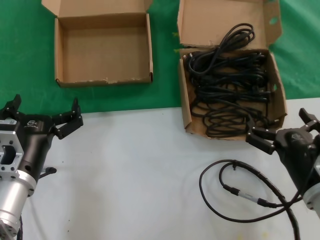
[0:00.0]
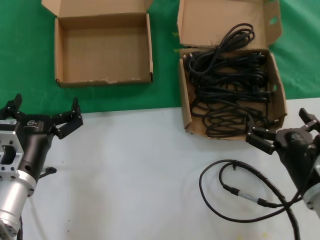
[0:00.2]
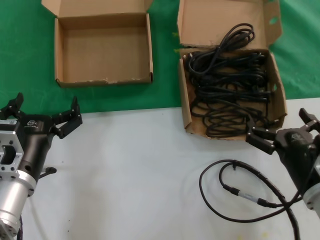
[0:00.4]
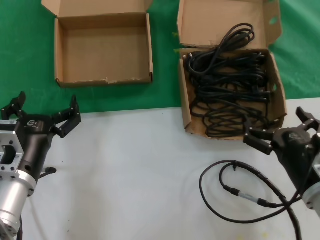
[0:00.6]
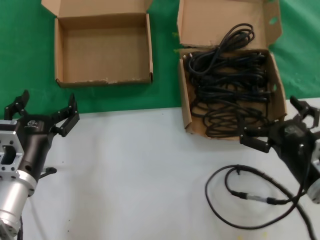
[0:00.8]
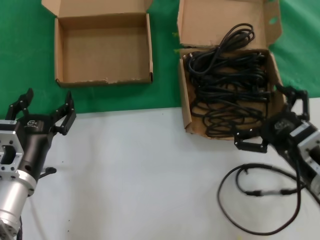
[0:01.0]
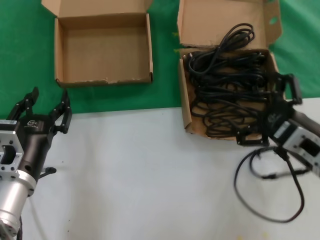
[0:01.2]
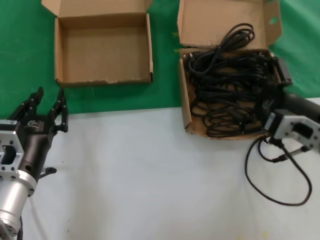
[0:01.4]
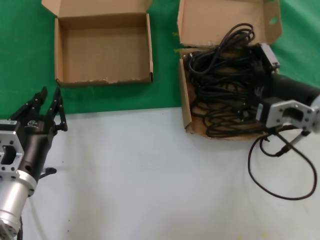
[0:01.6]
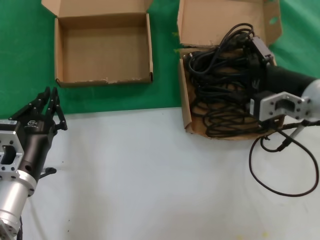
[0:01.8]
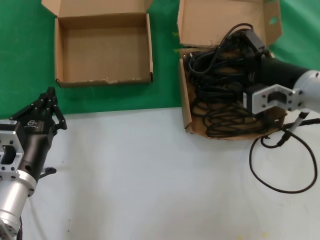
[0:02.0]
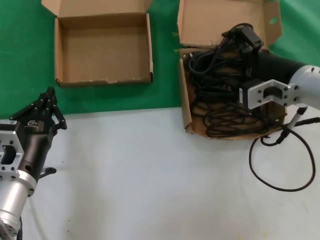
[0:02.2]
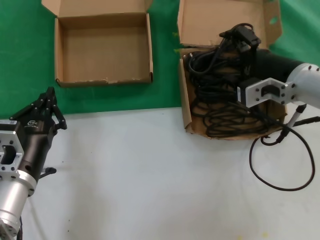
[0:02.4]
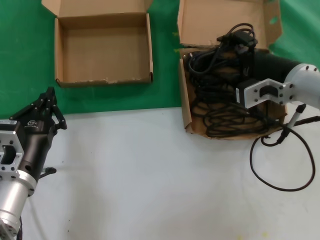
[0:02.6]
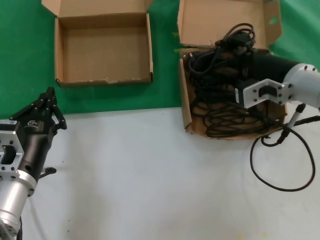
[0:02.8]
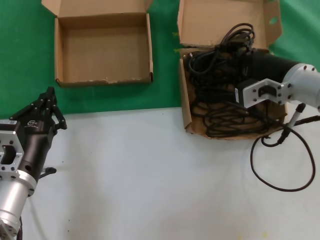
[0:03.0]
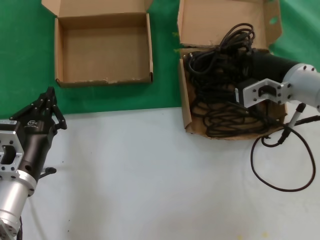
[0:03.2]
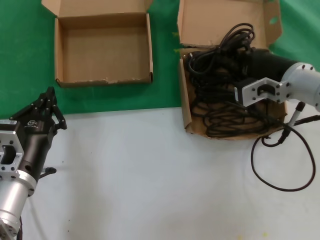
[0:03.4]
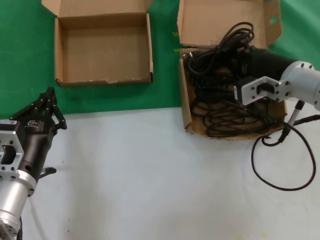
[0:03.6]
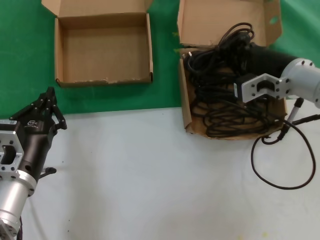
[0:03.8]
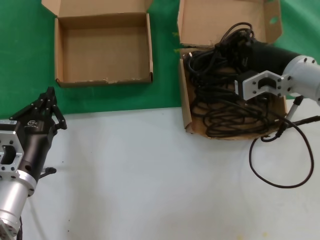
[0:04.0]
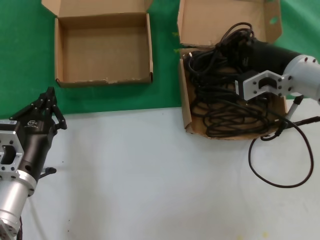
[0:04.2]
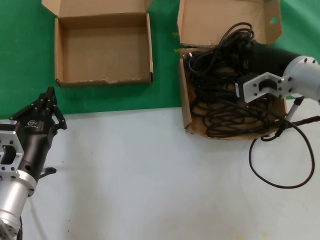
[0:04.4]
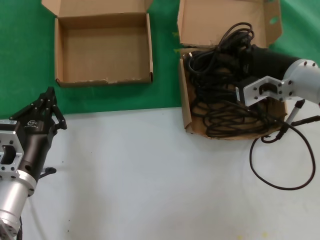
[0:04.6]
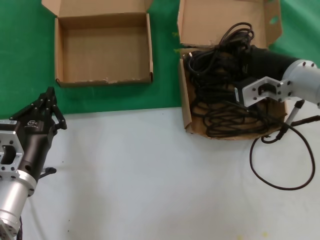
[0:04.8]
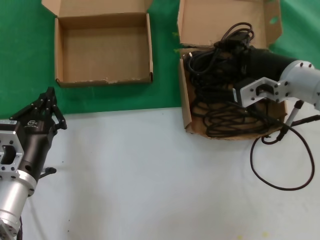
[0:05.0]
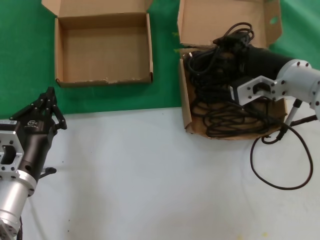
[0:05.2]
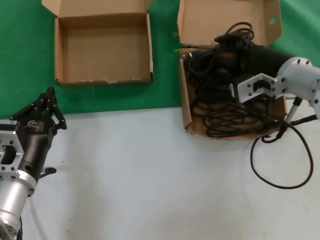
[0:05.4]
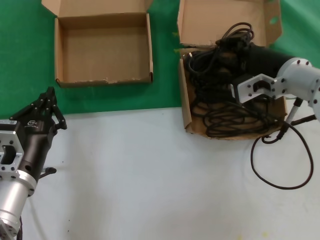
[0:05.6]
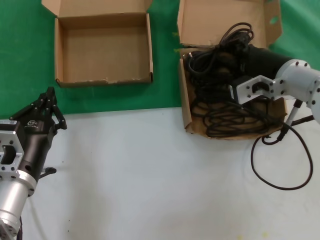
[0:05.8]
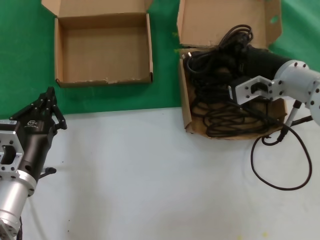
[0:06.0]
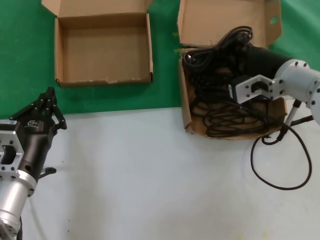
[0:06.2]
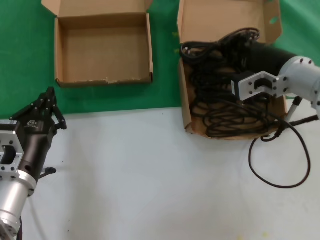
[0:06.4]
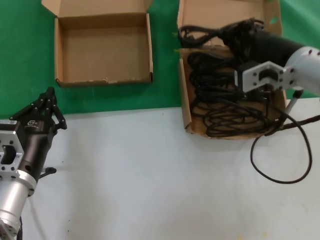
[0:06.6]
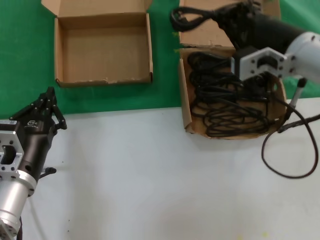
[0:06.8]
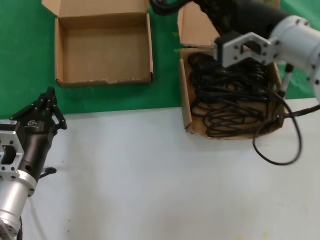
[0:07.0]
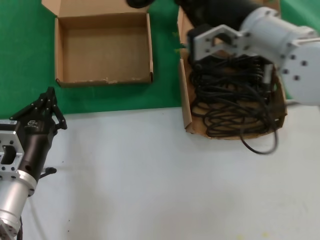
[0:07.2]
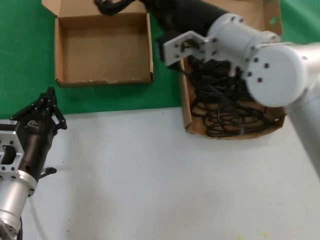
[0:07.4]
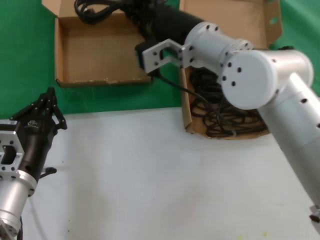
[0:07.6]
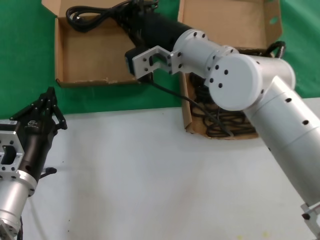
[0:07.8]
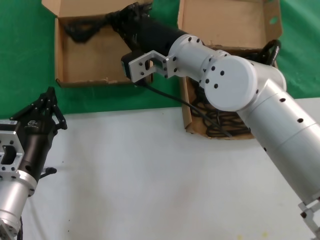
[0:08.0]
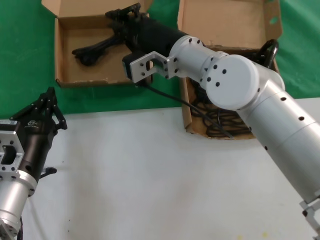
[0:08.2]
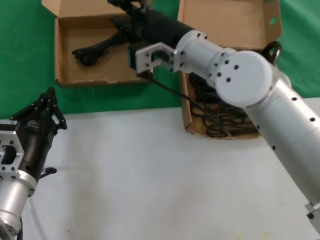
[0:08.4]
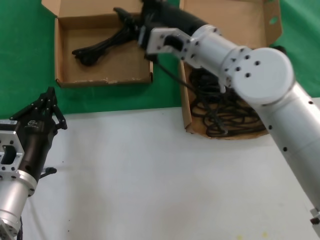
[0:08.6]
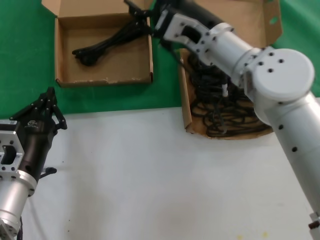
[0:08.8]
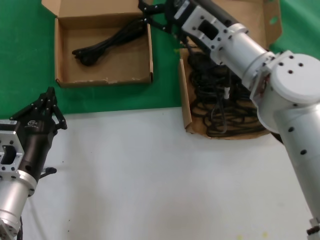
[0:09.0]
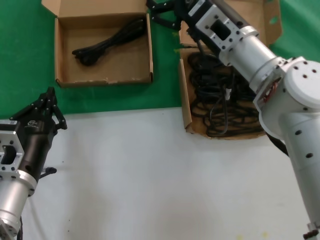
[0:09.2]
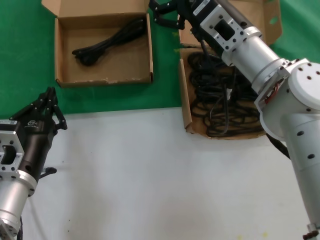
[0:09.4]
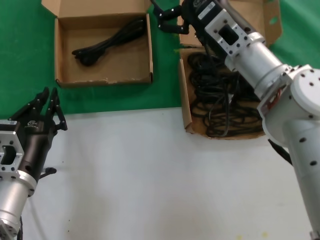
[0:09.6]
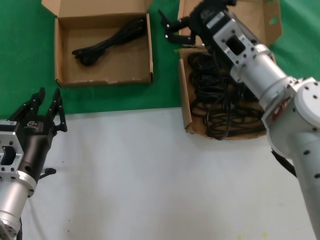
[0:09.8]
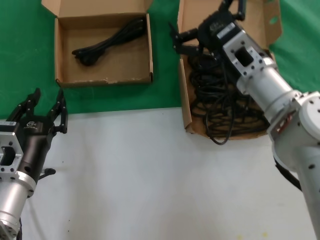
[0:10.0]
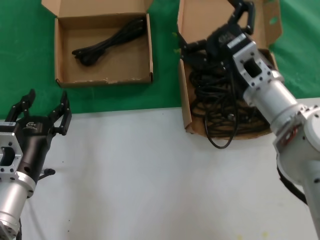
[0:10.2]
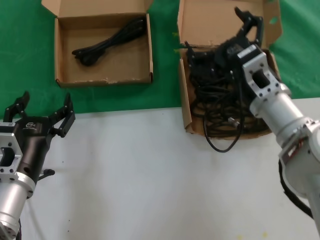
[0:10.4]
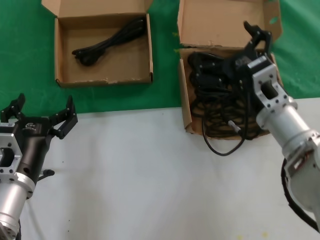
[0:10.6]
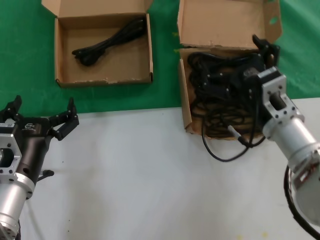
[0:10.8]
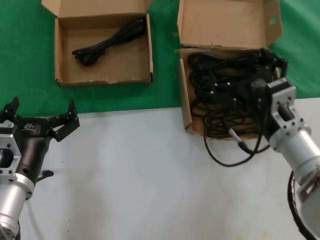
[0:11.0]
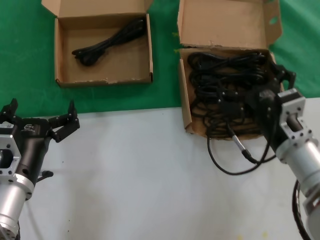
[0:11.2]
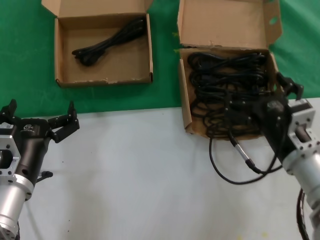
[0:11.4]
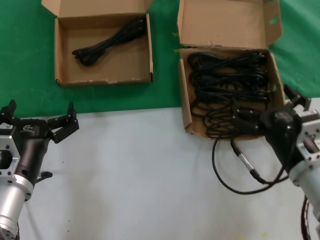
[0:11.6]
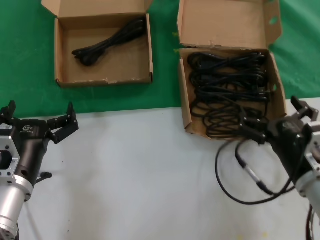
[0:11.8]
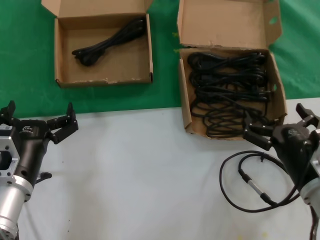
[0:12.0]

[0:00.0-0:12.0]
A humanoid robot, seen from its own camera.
Task of the whole recording: take the parts from the box containing them and put them into an empty box.
Step, 0.0 to 5.8 s: Grasp the data cable.
Step, 6.0 to 8.0 s: Place the data cable in the another box.
0.0 to 1.6 s: The right hand is displaced upward and forward by about 15 cm.
1.6 to 3.0 s: The right hand goes roughly 5 cm forward.
3.0 to 4.4 s: The two hands keep their place.
4.4 to 6.0 s: The hands move only a little.
6.0 to 7.6 s: The right hand is displaced to the left and upward by roughly 15 cm.
7.6 to 9.0 s: The right hand moves some 5 cm.
9.0 to 10.4 s: The right hand is displaced downward, to the right and backward by approximately 10 cm.
10.4 to 12.0 s: The right hand goes about 15 cm backward, downward and to the right.

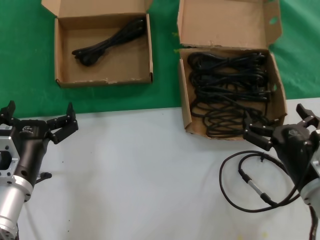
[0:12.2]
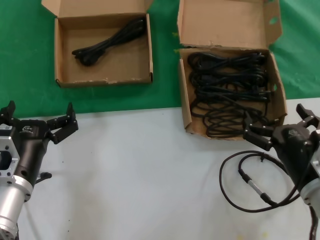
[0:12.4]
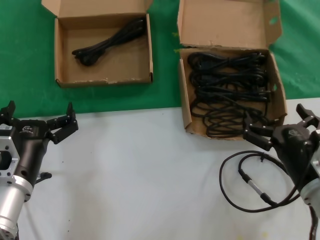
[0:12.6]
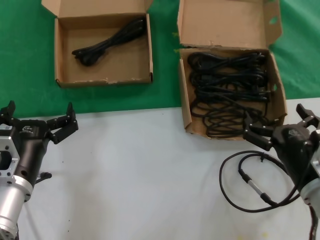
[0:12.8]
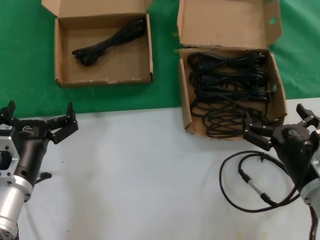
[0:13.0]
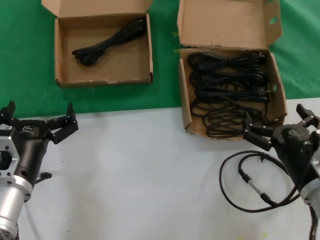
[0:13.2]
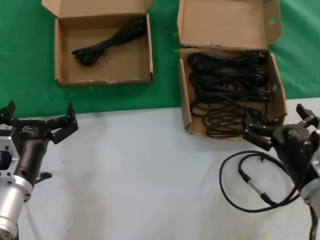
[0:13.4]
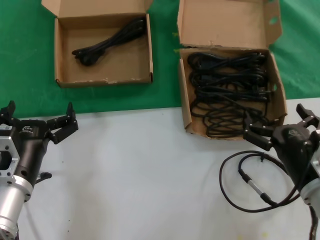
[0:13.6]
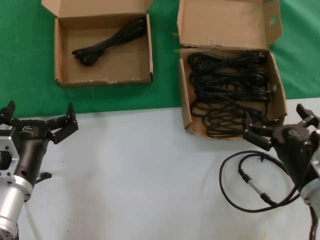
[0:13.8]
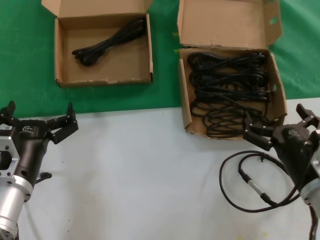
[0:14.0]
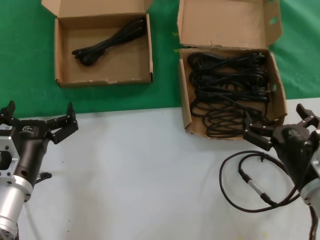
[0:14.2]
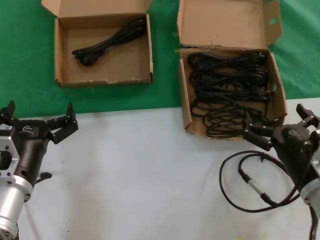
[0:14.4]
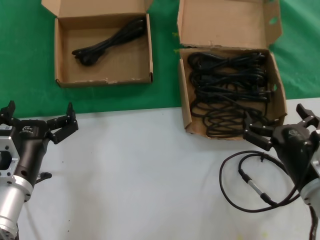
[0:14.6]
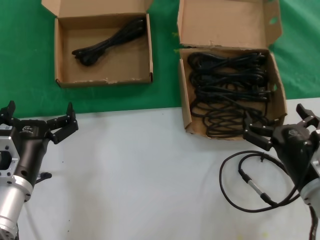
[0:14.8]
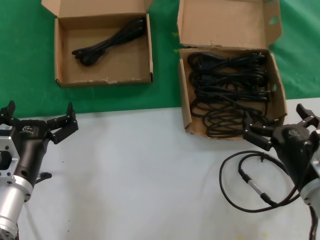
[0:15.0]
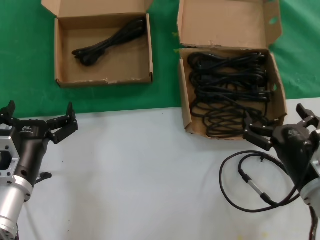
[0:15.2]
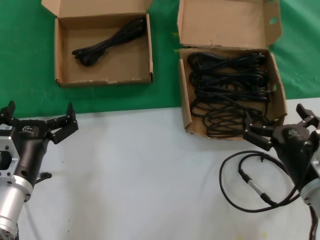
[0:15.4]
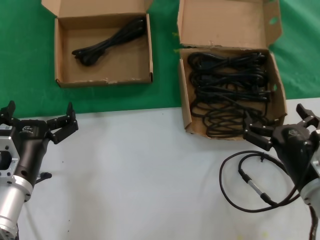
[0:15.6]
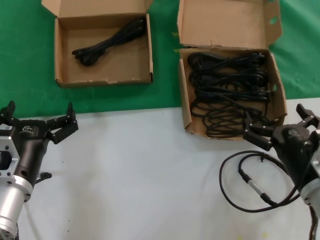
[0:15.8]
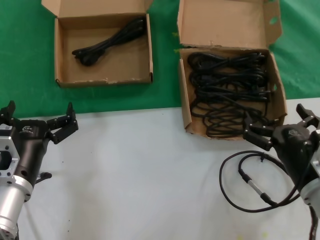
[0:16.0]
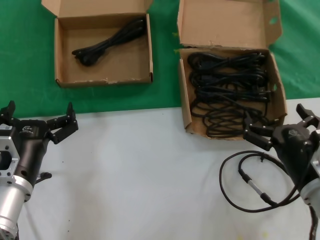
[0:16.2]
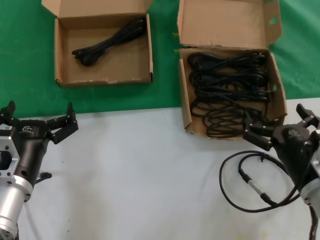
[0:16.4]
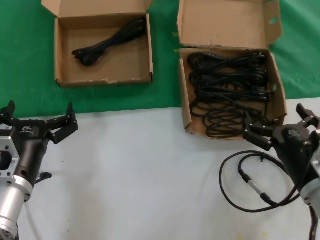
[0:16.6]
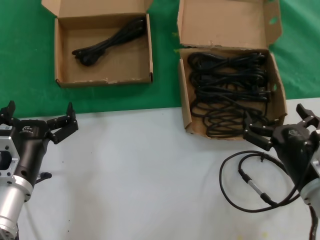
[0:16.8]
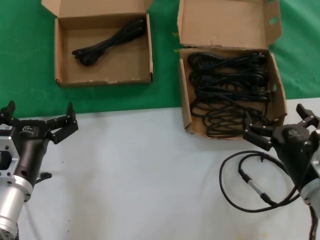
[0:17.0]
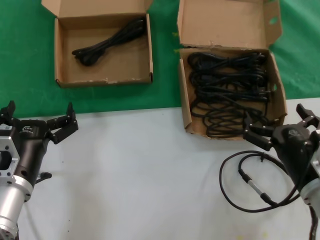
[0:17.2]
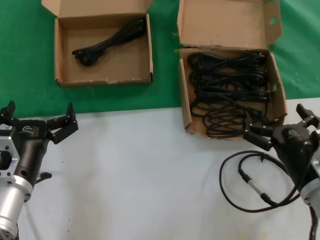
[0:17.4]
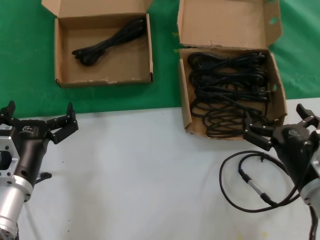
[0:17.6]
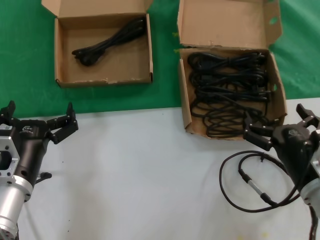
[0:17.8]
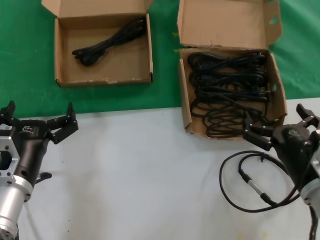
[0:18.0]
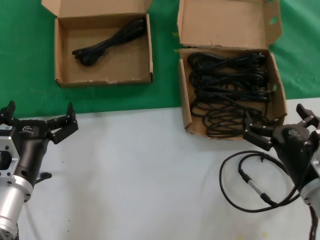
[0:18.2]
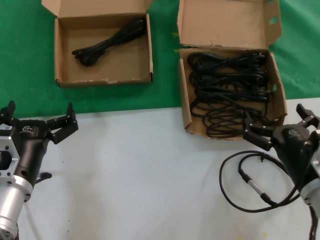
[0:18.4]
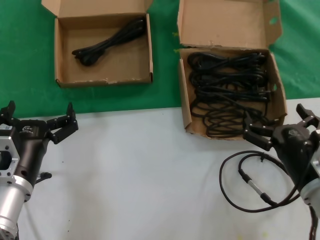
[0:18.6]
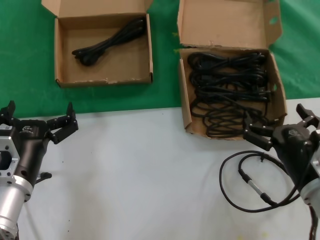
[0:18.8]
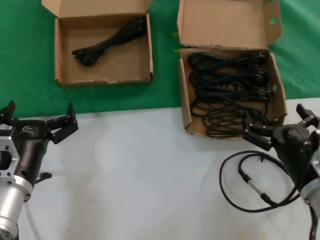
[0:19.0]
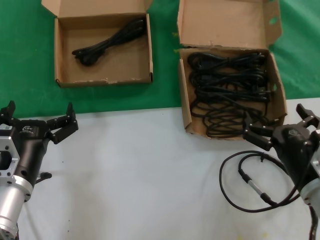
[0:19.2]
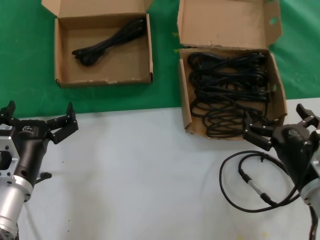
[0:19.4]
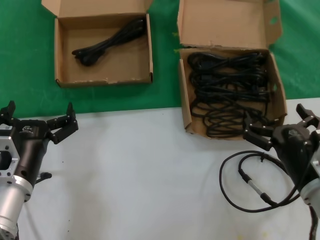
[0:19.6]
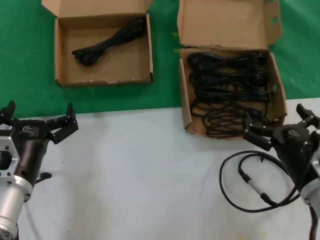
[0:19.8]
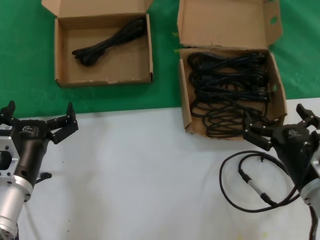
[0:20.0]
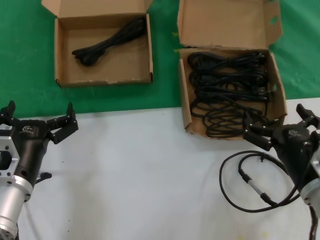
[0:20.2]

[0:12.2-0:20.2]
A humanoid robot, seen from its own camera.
Task of the whole recording: take the parts from the box containing them and put them into an empty box.
12.2 to 20.2 s: Both hands stay put.

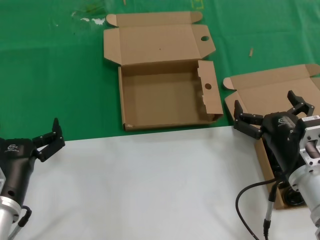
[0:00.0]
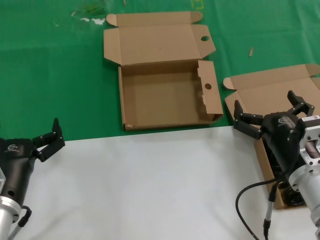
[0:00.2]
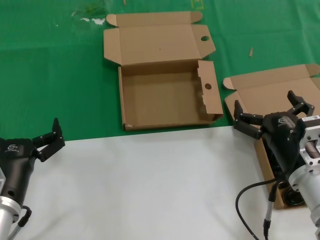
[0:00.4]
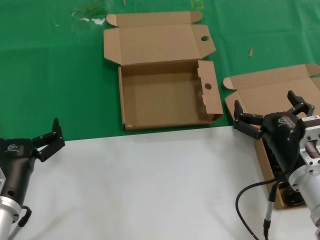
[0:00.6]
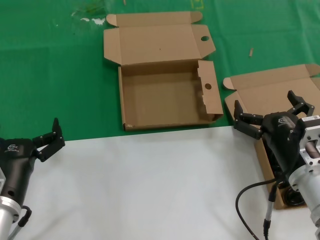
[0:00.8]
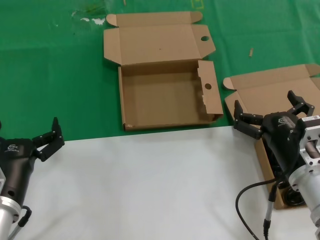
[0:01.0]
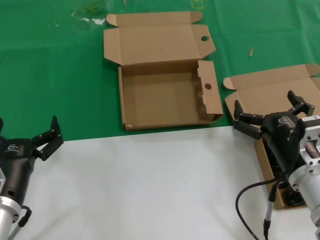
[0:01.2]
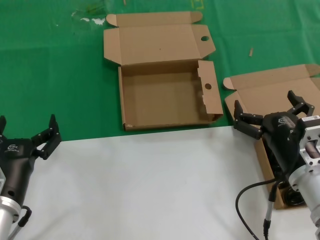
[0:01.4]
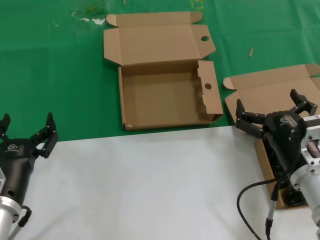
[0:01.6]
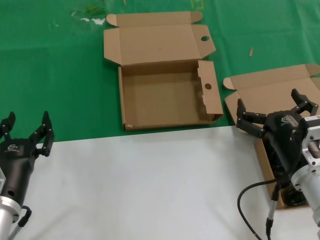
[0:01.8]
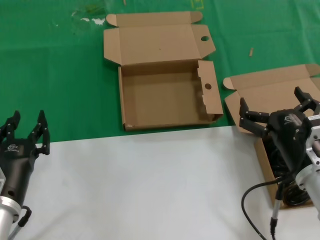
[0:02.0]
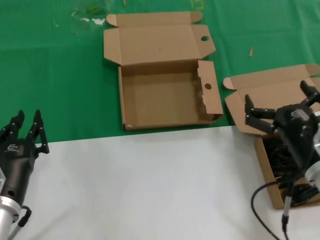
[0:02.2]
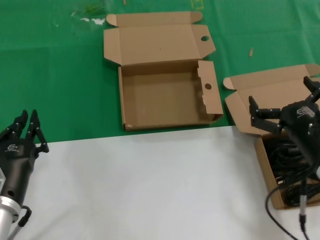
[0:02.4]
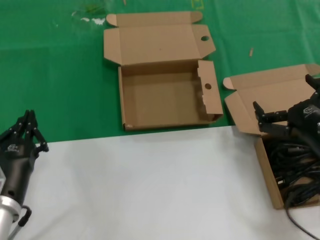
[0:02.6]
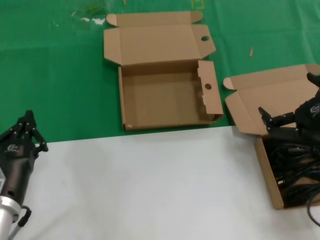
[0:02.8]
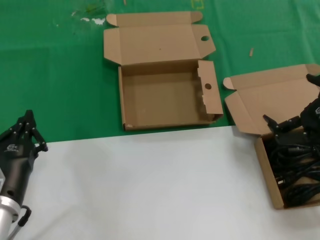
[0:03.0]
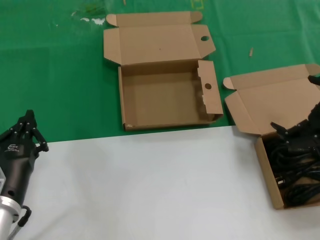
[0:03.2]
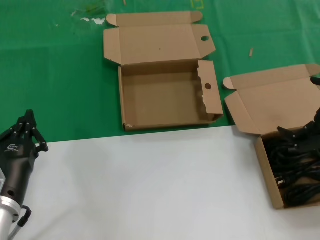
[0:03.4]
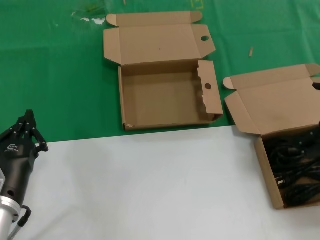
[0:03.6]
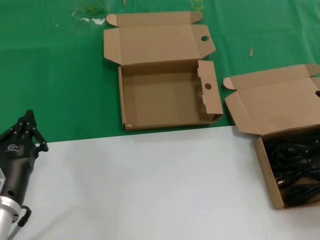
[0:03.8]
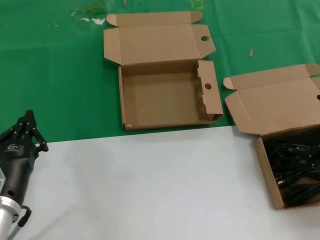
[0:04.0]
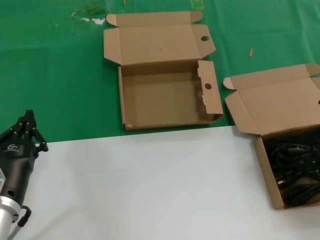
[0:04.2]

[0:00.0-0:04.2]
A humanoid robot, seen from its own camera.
Task of the whole recording: take the parts from the box containing them and put them into an empty box.
0.0 to 1.4 s: Neither hand changes place.
1.4 to 2.8 s: The right hand moves to the right and upward, roughly 10 cm.
2.8 to 4.2 s: The right hand heads upward and to the right, covering about 10 cm.
